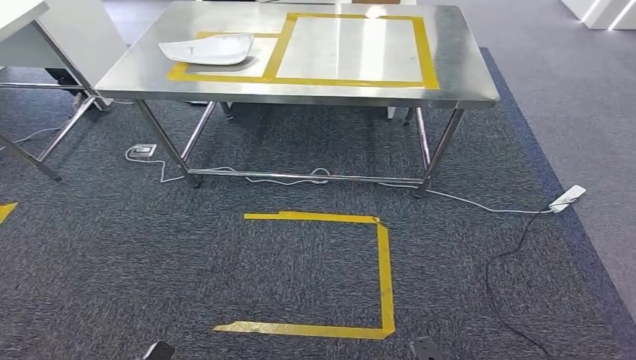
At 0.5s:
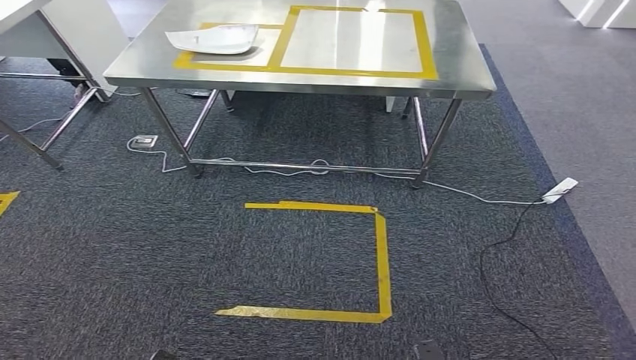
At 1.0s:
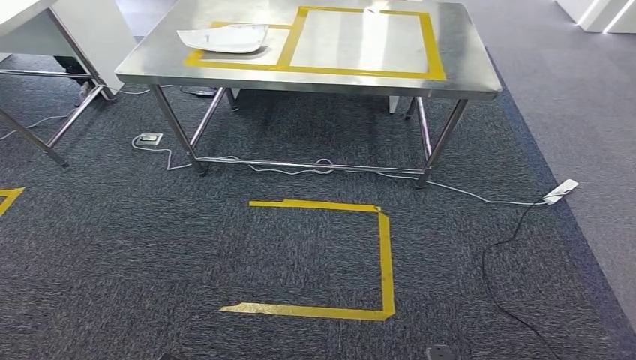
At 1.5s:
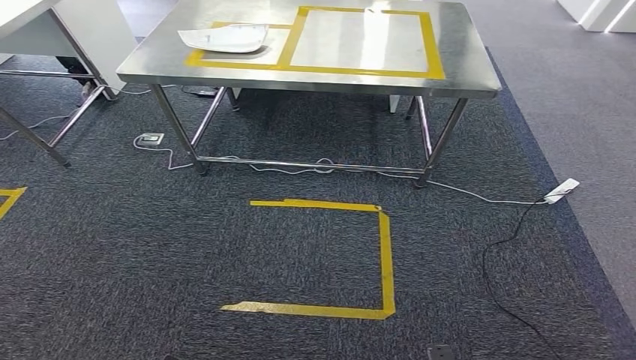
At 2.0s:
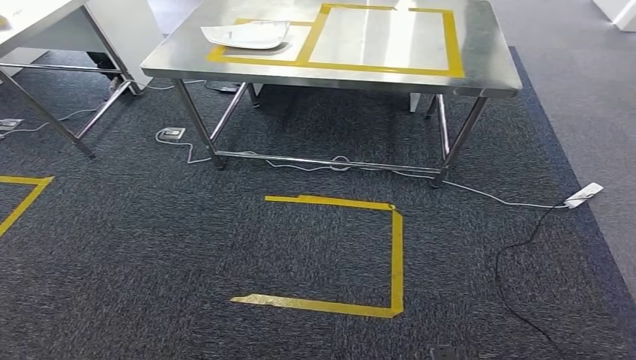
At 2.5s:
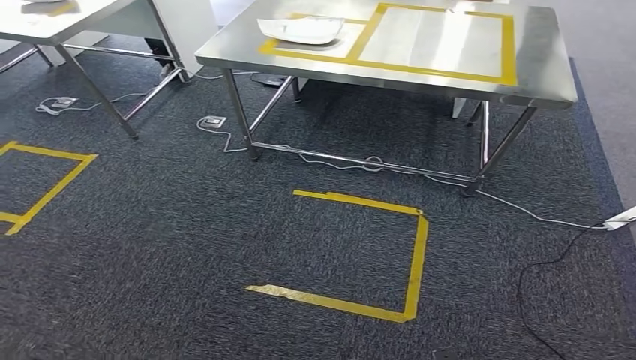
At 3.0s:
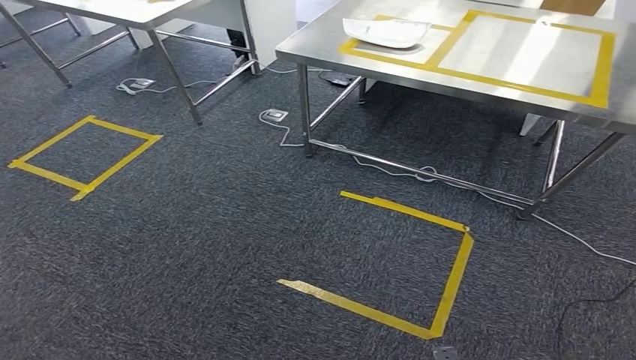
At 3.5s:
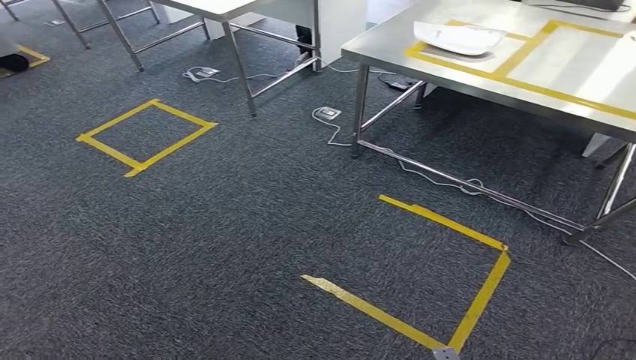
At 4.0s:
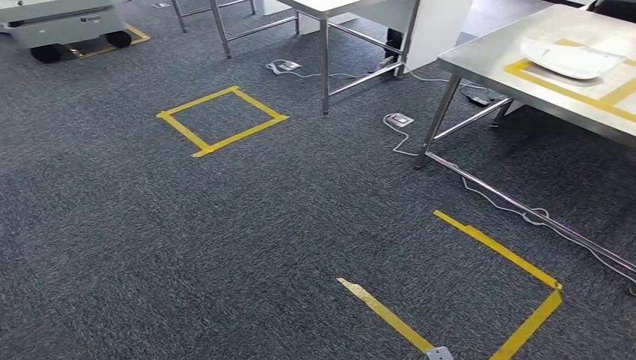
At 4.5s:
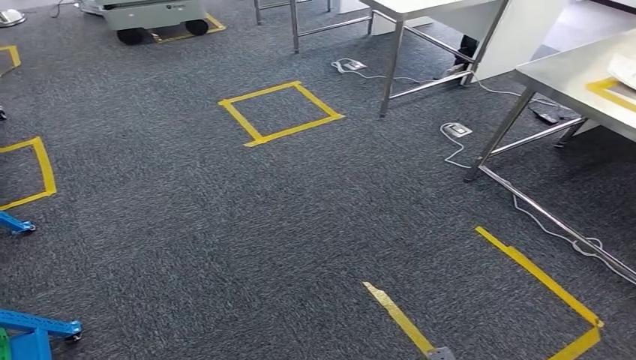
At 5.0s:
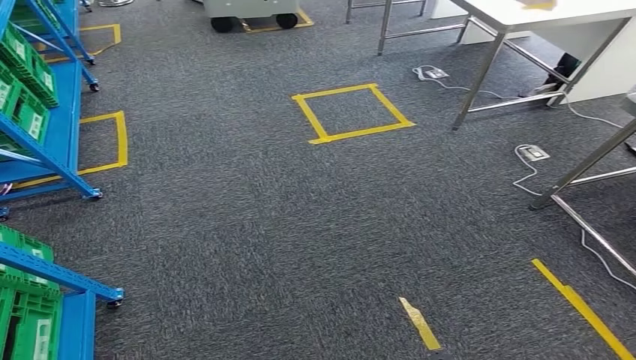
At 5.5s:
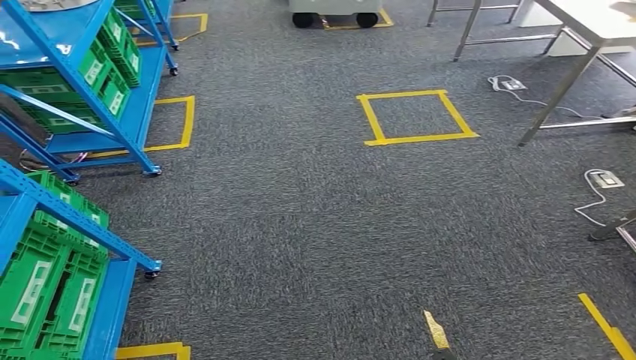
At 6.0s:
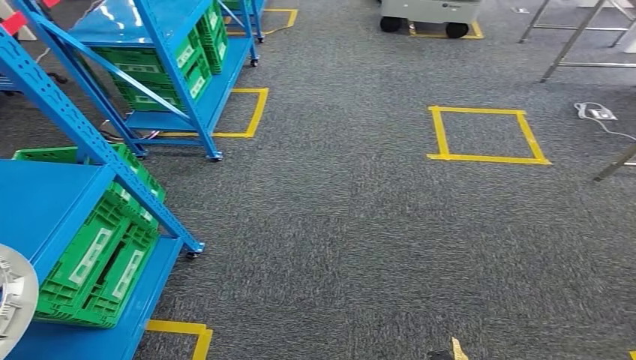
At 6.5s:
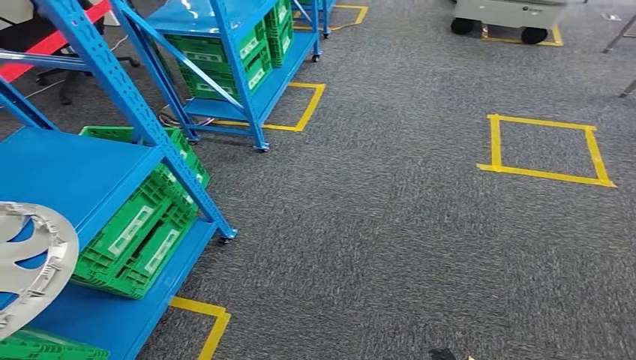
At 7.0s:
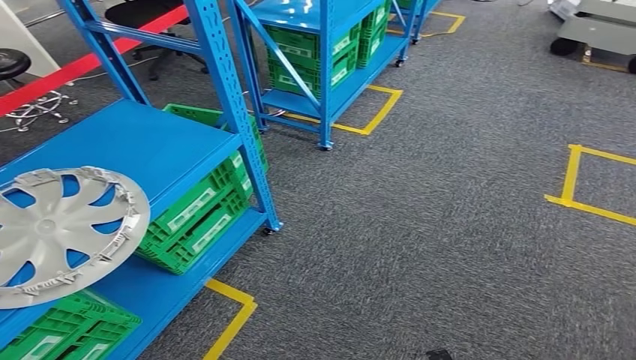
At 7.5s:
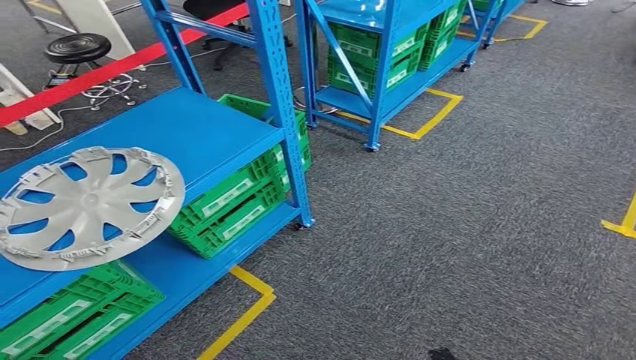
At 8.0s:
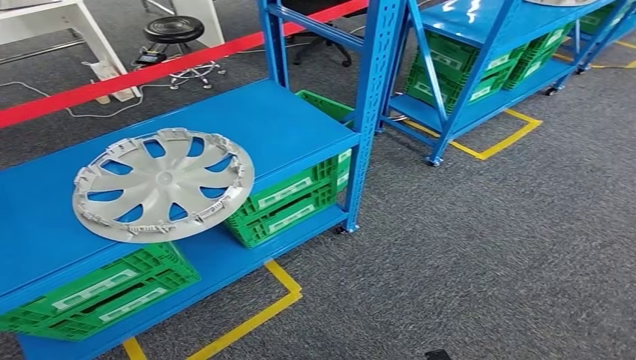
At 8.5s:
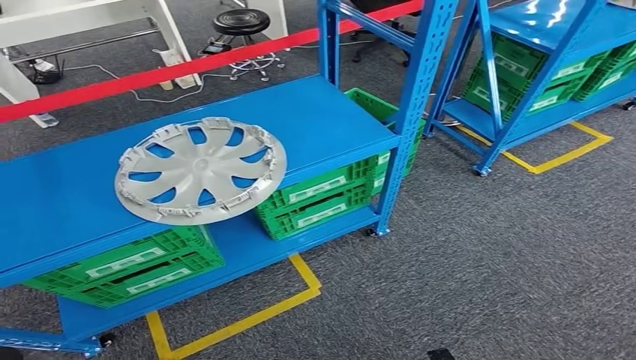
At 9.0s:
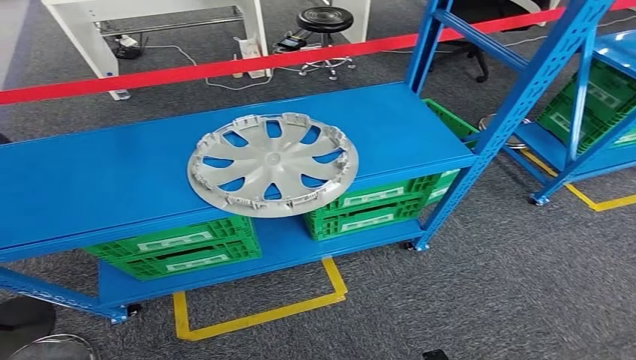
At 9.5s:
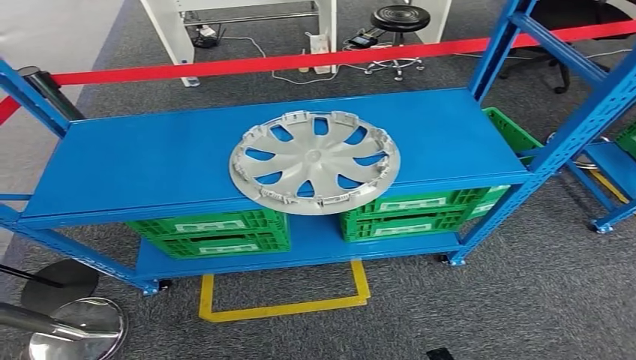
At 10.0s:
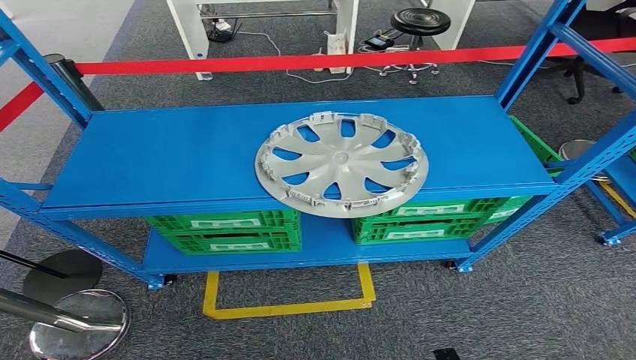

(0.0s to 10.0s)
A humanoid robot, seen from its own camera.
Step, 0.0s - 10.0s: Move to the initial position at the workbench.
